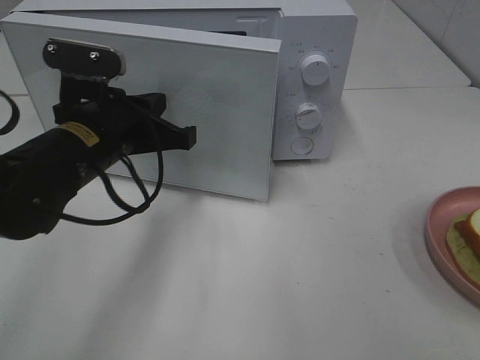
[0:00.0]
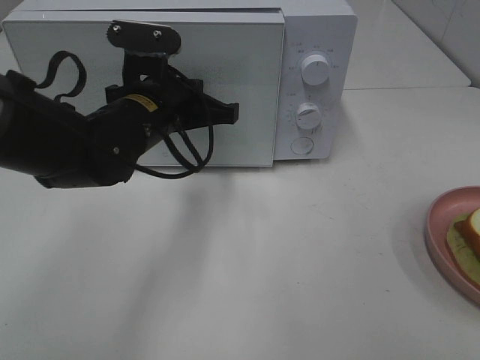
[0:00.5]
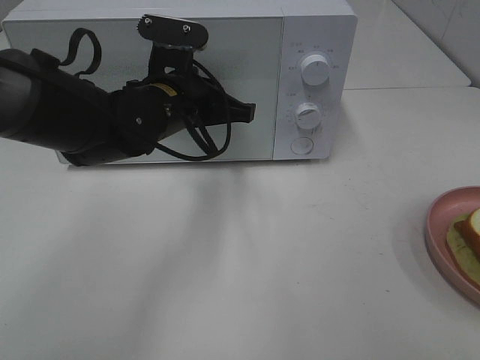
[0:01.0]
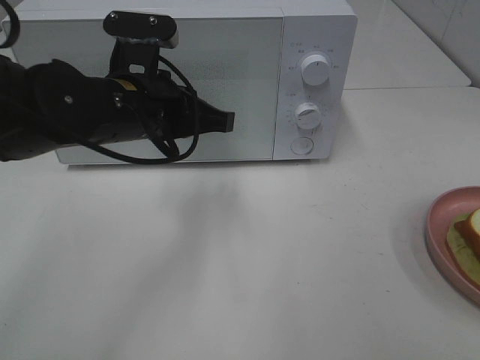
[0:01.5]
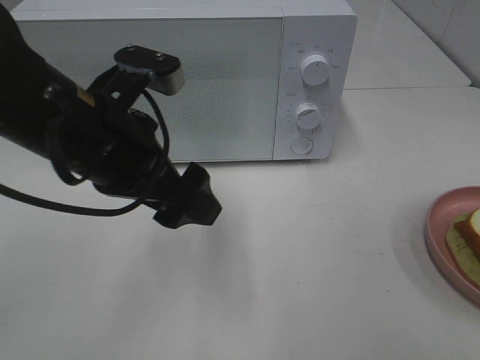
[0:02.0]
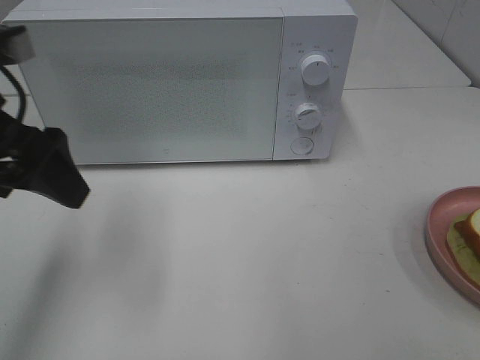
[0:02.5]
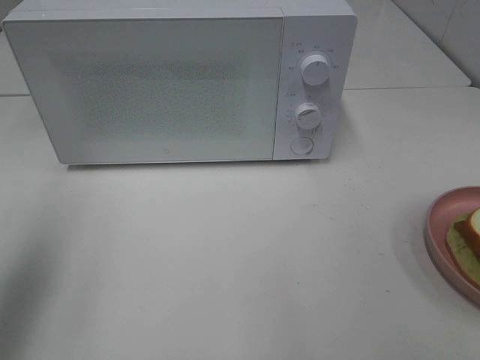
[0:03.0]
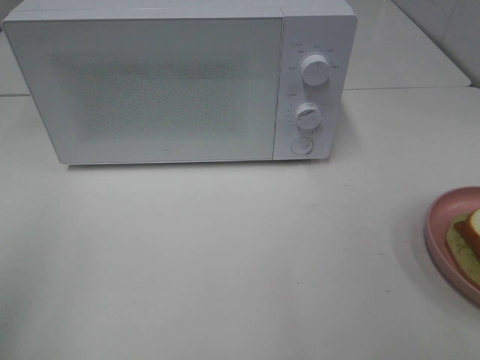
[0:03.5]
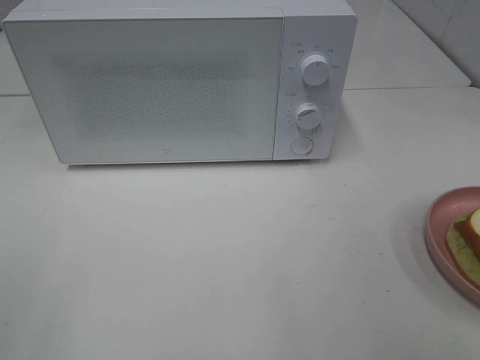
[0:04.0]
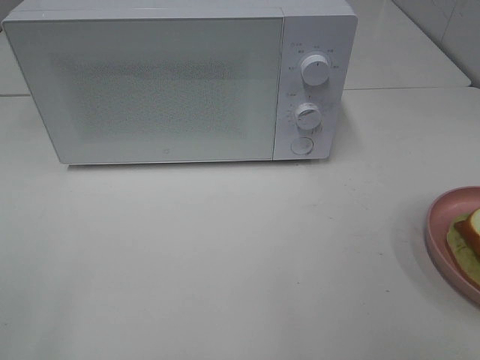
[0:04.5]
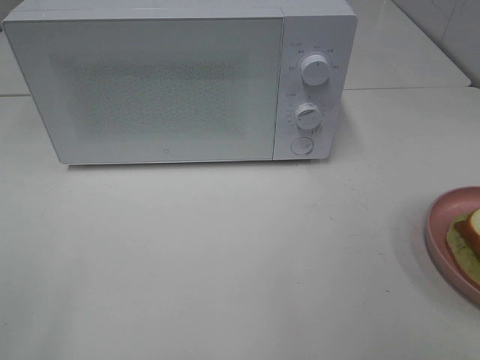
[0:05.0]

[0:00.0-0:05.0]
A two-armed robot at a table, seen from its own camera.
Task of the whole recording: Heat Sandwich.
0:00.0 to 0:02.5: The left gripper shifts roughly 15 cm upward and to the left, and opens up.
0:02.5 to 0:05.0: The left gripper is displaced backward by approximately 25 cm.

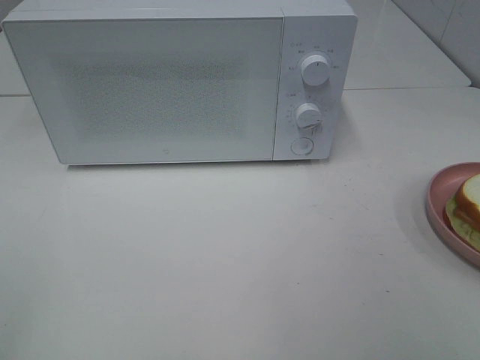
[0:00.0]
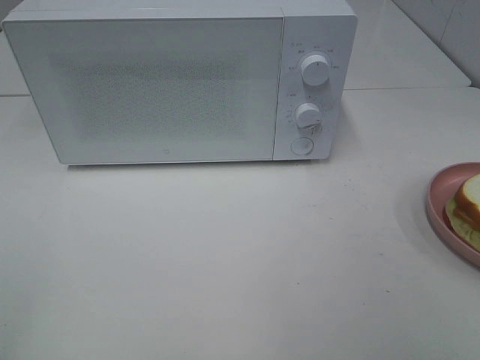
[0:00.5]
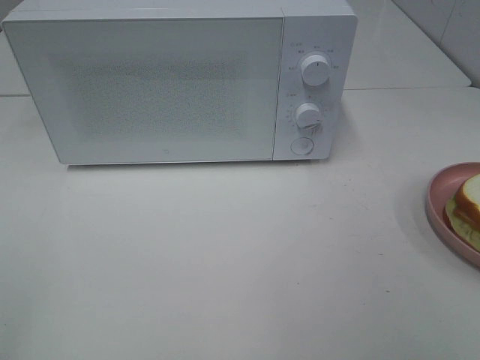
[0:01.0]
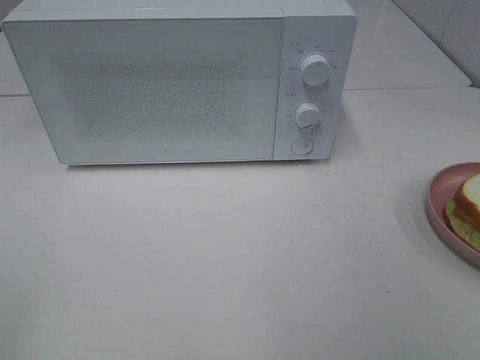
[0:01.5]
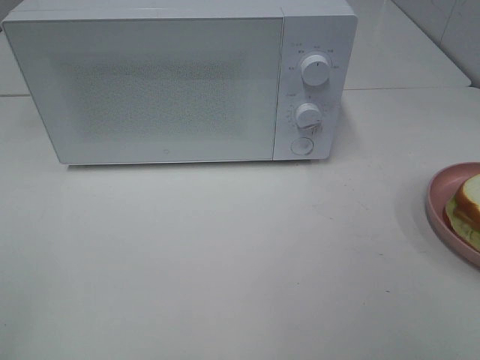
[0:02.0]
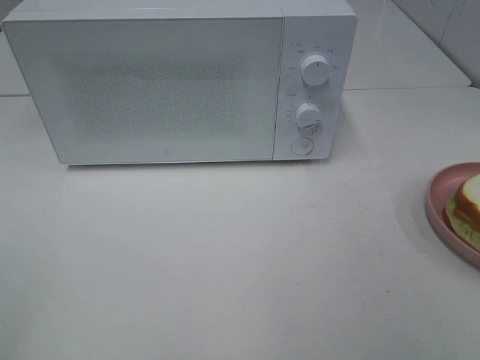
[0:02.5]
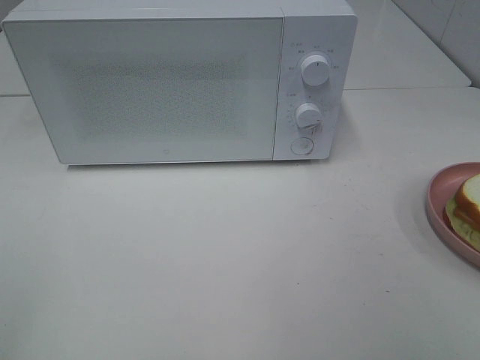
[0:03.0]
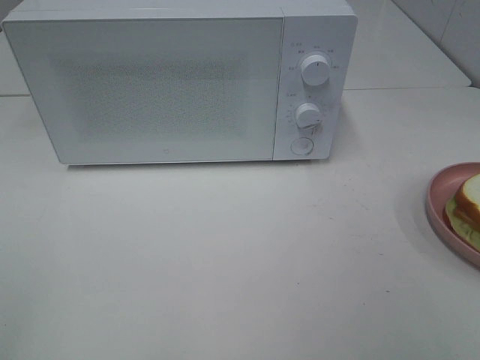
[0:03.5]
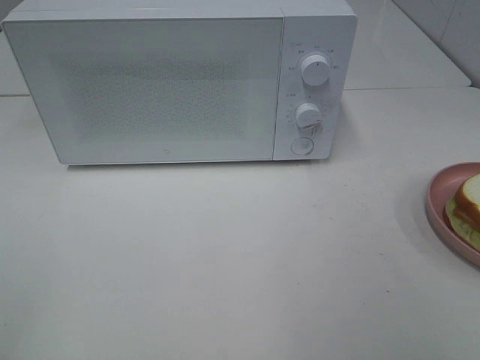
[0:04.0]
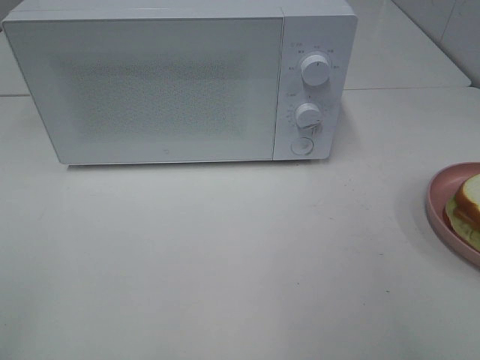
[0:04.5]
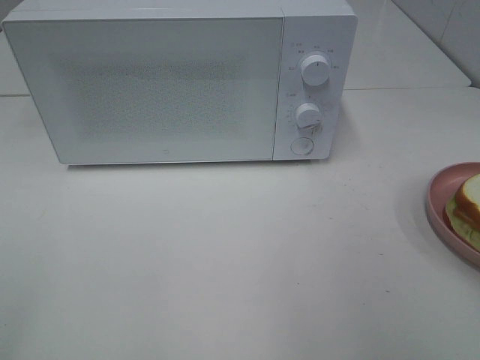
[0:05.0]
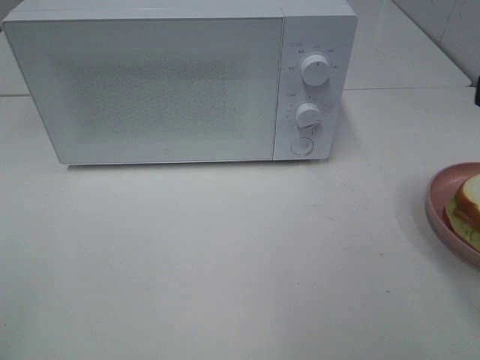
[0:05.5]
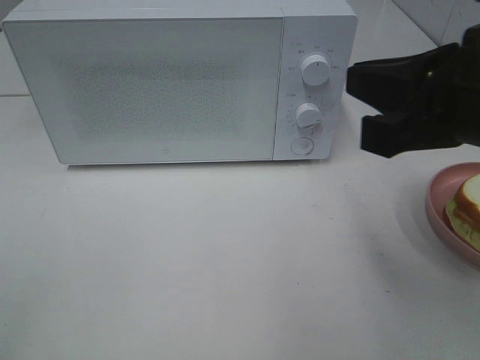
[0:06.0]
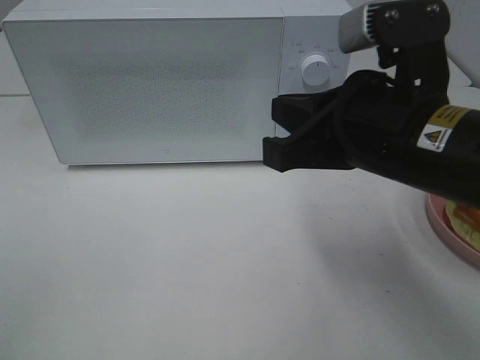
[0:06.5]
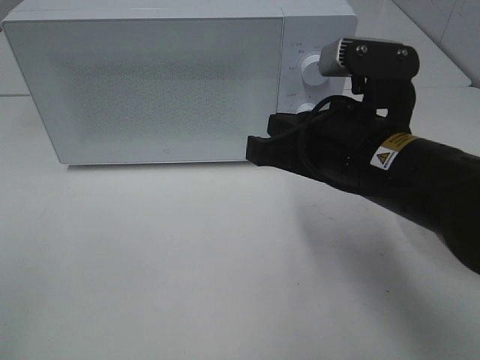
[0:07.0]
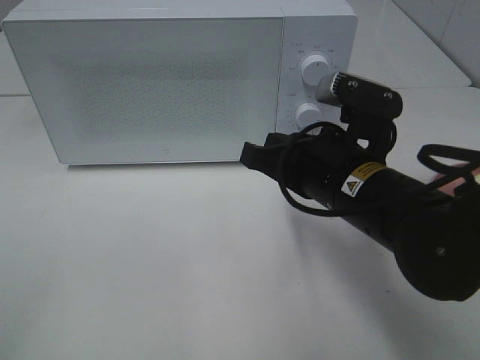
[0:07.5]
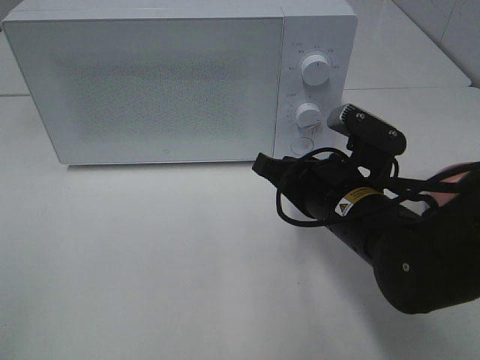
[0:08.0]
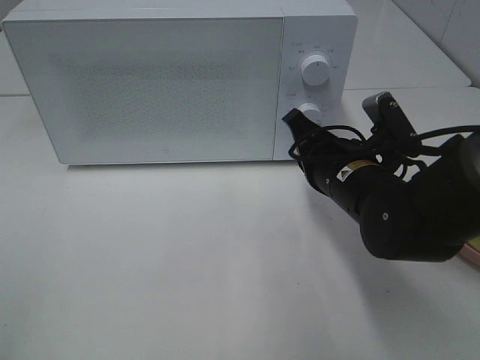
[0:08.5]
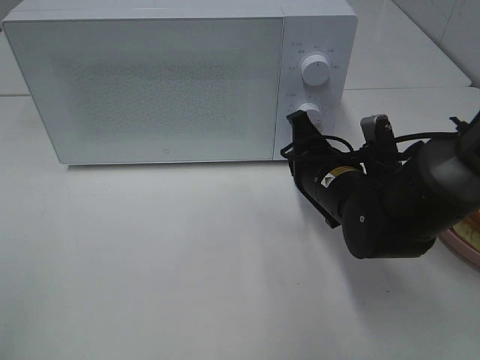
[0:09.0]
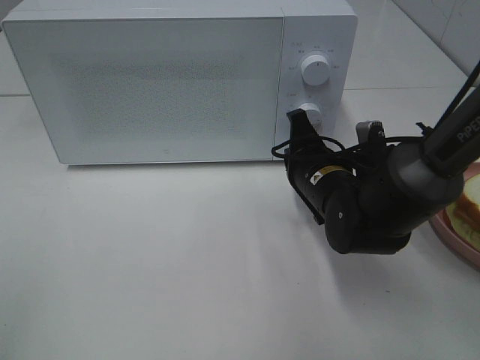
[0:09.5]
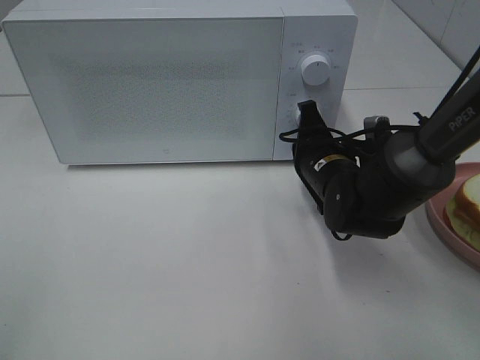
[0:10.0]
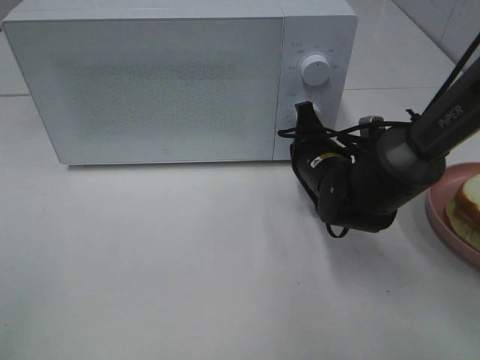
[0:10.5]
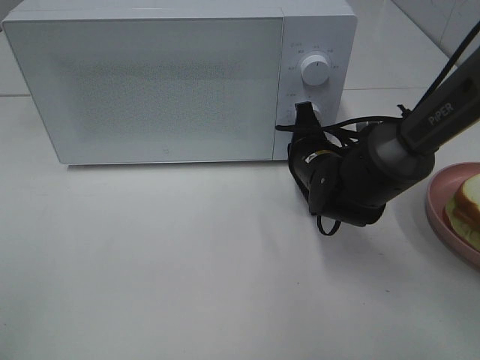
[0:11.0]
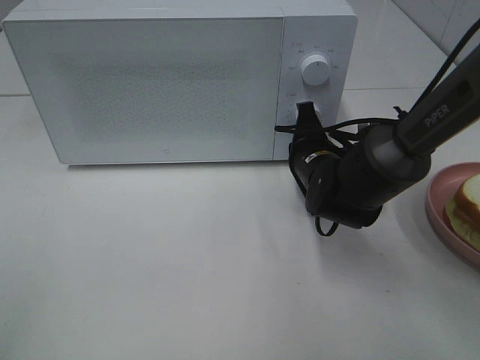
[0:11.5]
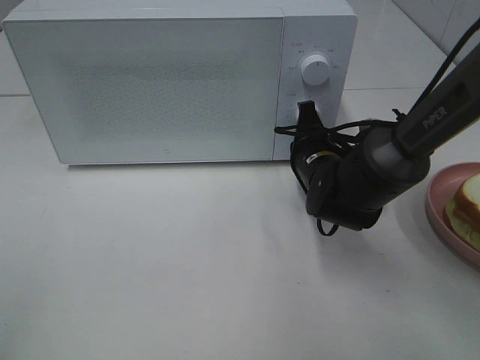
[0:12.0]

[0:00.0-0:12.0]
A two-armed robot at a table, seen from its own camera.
Task of the whole recording: Heat Sandwich.
0:00.0 to 0:02.0: The two grippers keep their place.
0:04.0 to 0:06.0: The right gripper shifts about 20 cm forward and to the left, and closes.
0:06.0 to 0:08.0: The right gripper heads downward and forward, covering some 20 cm.
0:08.0 to 0:10.0: The right gripper goes approximately 10 cm forward.
0:10.0 to 0:12.0: The grippers move only a little.

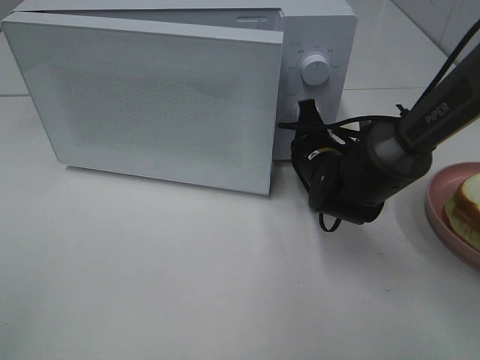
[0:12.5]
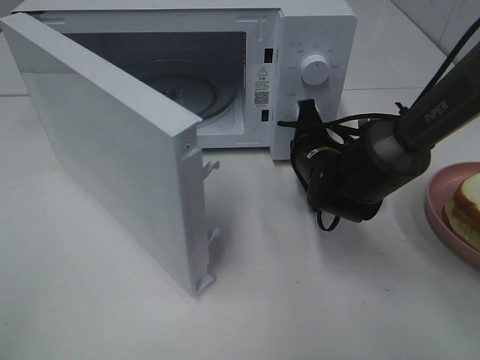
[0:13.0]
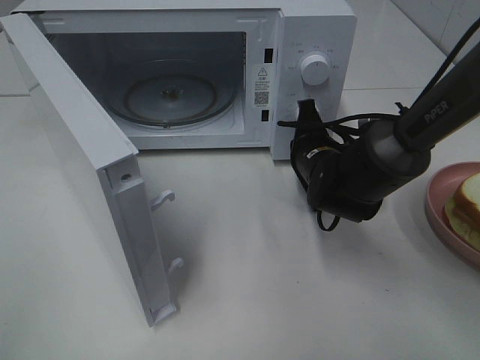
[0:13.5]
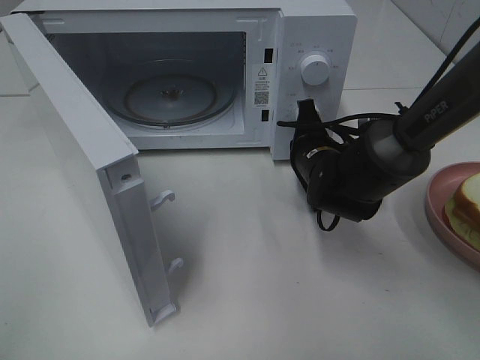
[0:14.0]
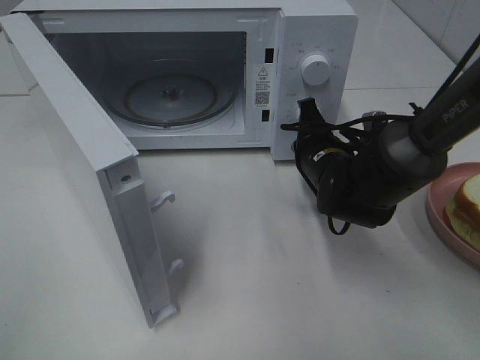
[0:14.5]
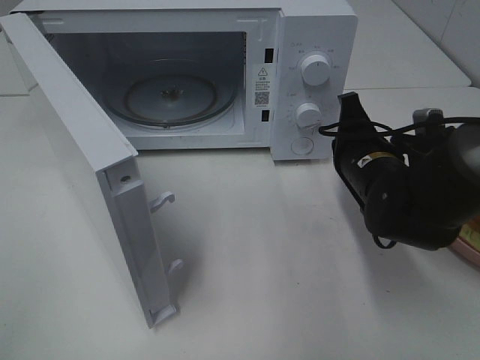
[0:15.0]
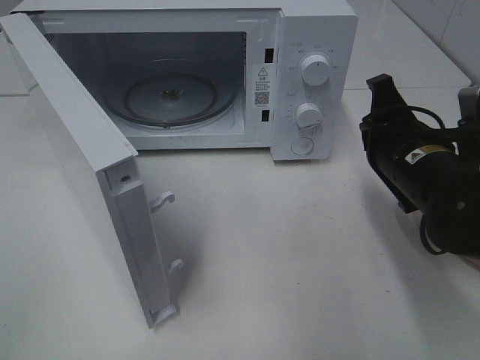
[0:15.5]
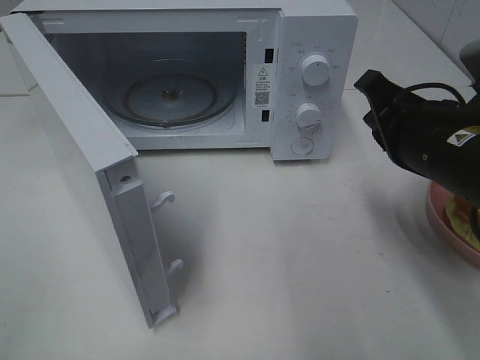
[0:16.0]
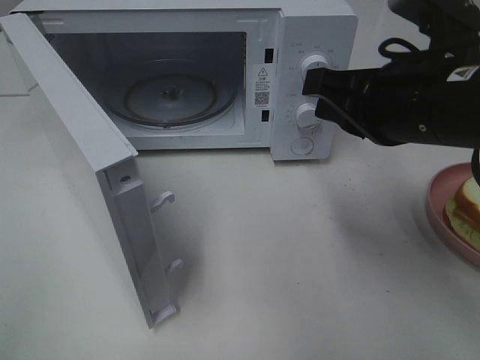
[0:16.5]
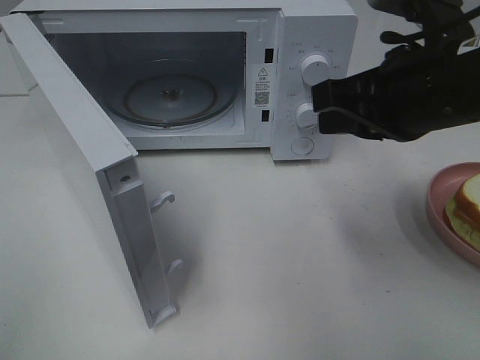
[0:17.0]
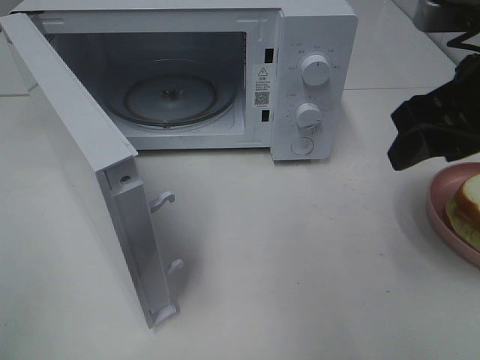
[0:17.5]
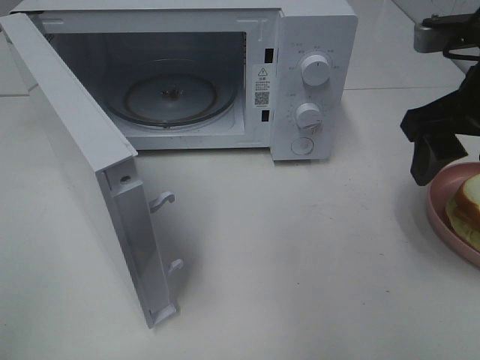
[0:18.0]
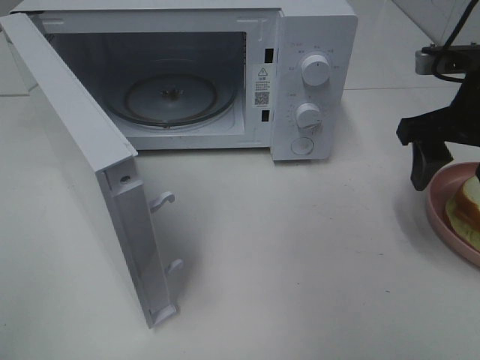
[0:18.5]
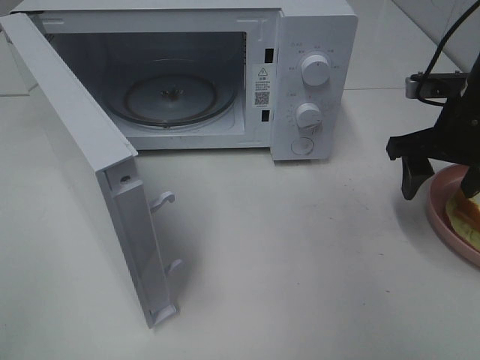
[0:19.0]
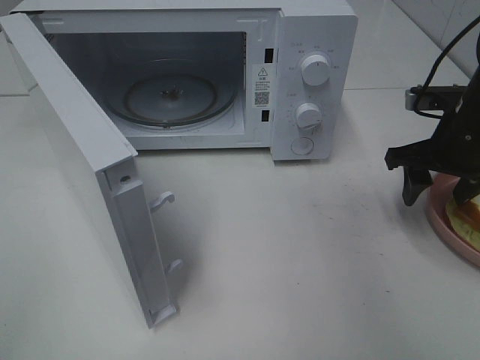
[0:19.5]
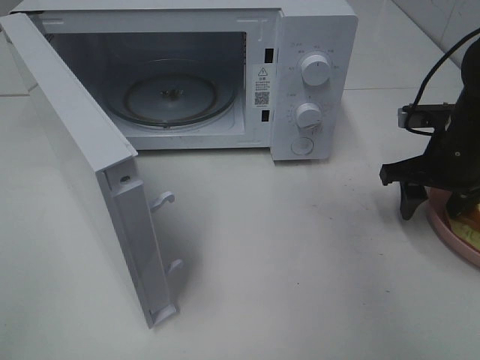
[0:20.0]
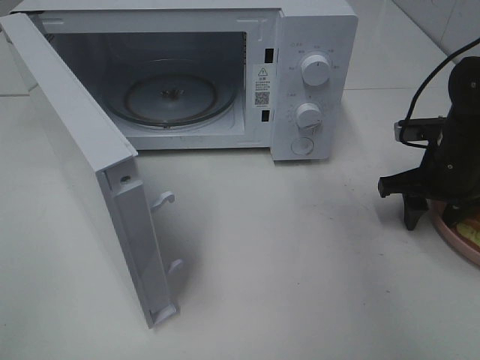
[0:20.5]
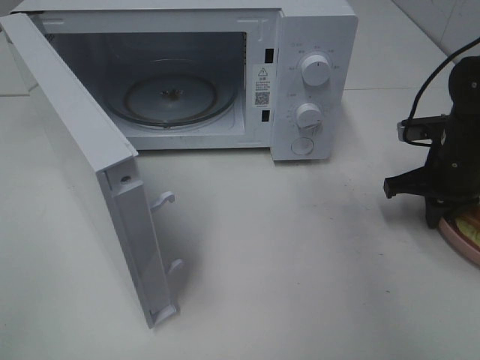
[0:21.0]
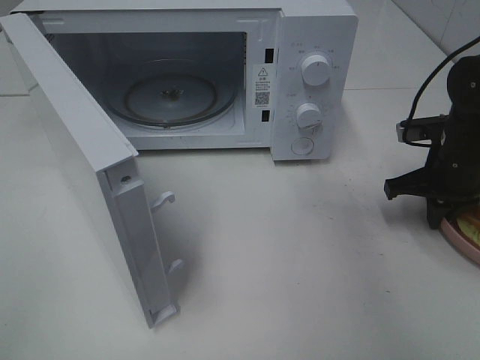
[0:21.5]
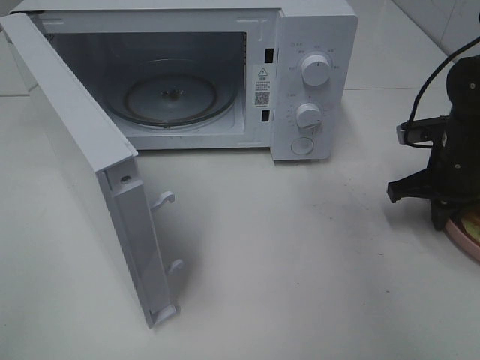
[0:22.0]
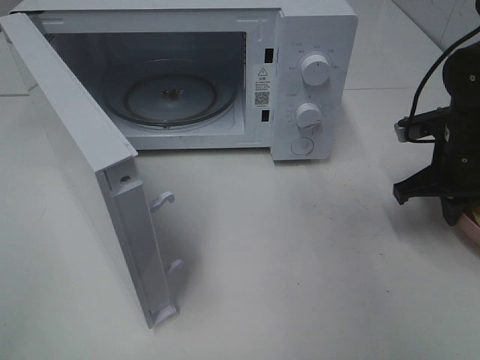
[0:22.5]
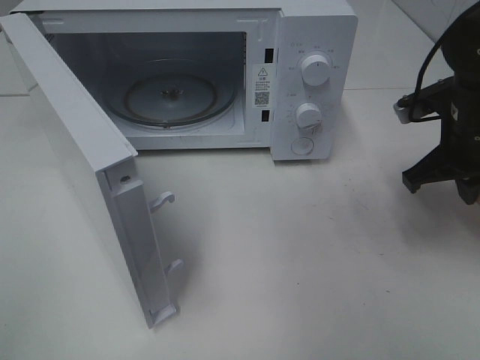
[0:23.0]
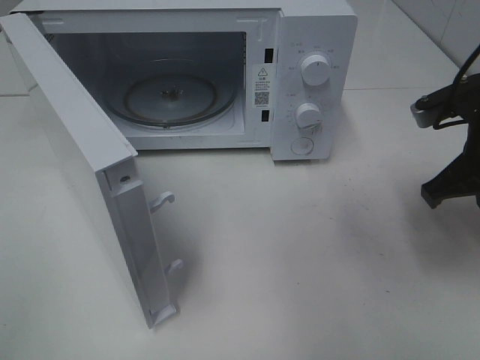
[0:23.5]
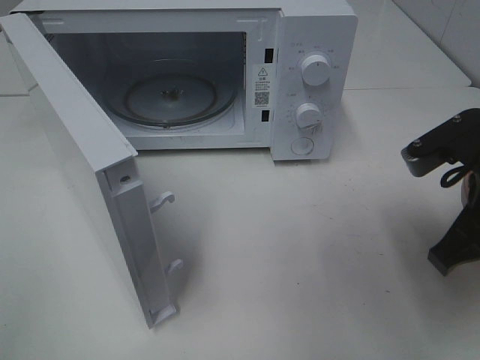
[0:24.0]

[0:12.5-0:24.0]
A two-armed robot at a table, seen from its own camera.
Task of the whole recording: Heat Sandwich.
Step, 0:12.5 to 0:14.5: Right hand: press the switch.
Step, 0:15.0 to 0:21.0: Right hand: grab the plate with the sandwich.
0:14.5 to 0:16.5: The right gripper is displaced upward and backward by about 20 cm.
0:16.5 to 0:18.5: The right gripper travels to the right and forward by approximately 10 cm, and opens.
0:18.5 to 0:20.0: The right gripper moves downward, some 10 cm.
0:20.0 to 0:22.0: The right gripper closes.
0:22.0 to 0:24.0: The right gripper heads backward, upward and to the left, covering about 15 cm.
